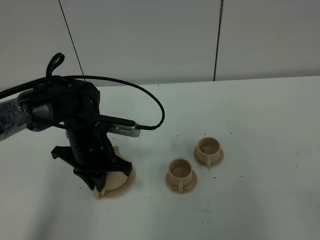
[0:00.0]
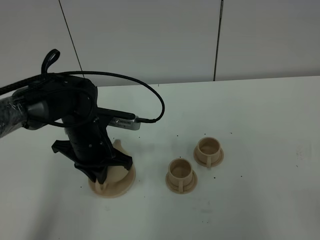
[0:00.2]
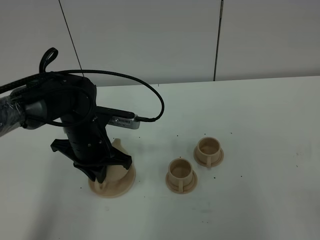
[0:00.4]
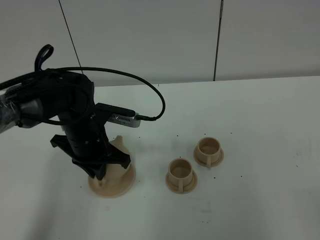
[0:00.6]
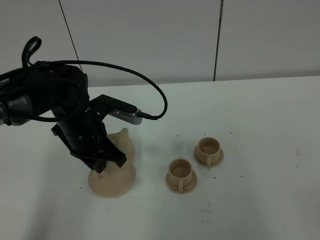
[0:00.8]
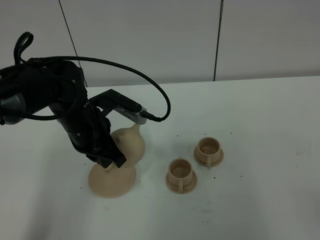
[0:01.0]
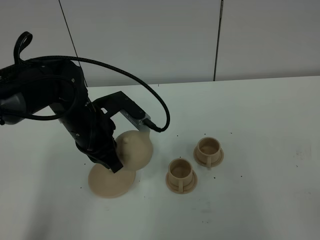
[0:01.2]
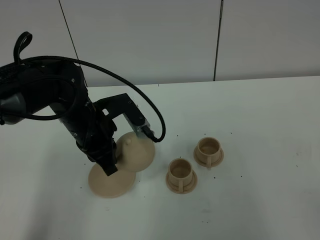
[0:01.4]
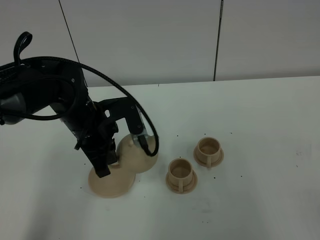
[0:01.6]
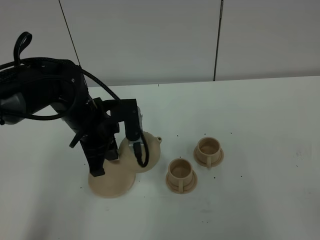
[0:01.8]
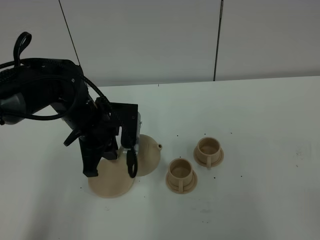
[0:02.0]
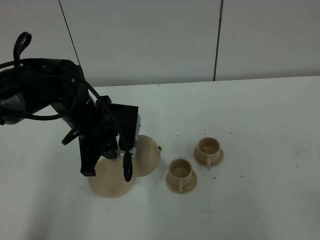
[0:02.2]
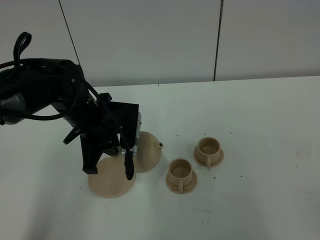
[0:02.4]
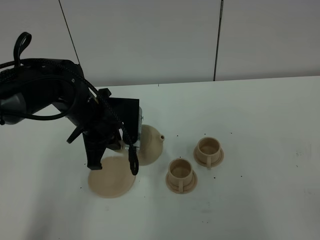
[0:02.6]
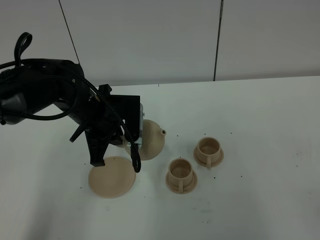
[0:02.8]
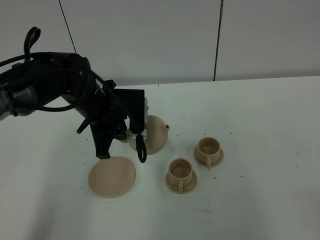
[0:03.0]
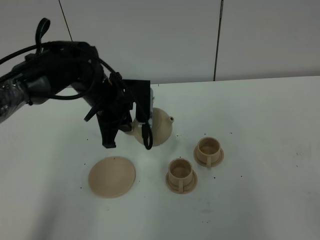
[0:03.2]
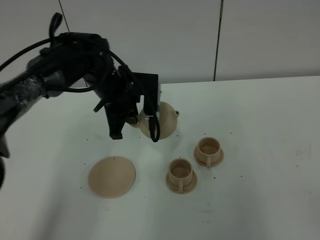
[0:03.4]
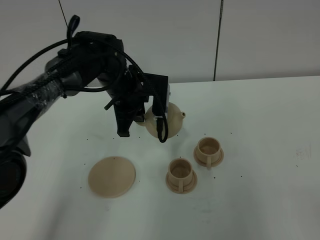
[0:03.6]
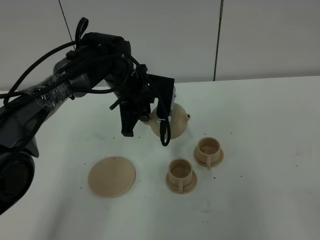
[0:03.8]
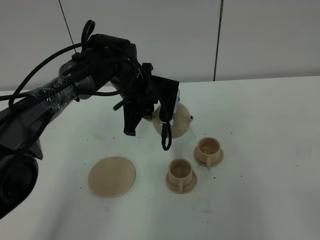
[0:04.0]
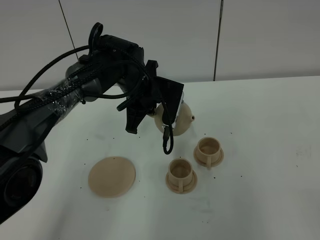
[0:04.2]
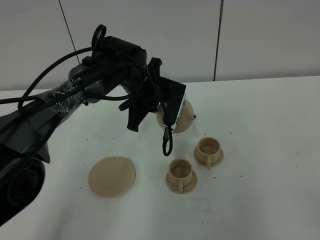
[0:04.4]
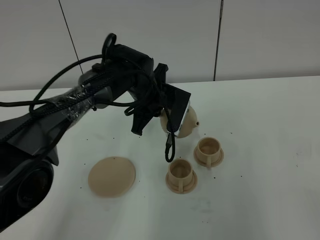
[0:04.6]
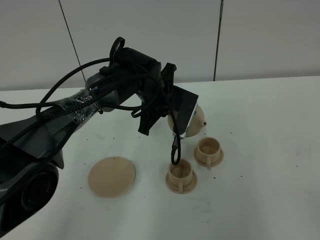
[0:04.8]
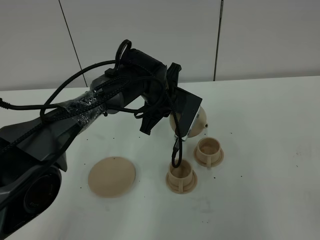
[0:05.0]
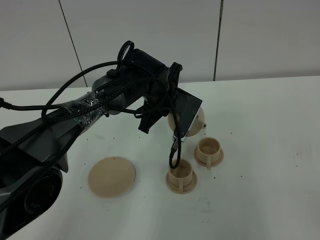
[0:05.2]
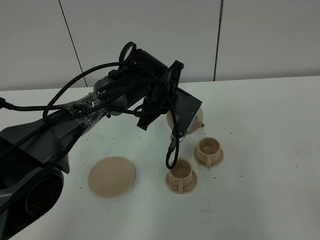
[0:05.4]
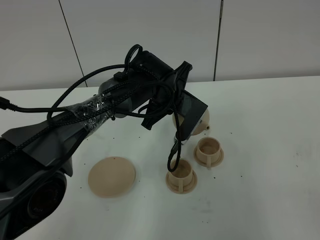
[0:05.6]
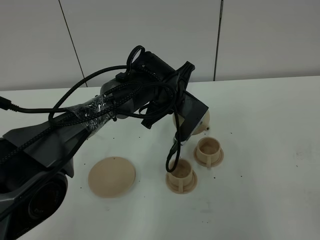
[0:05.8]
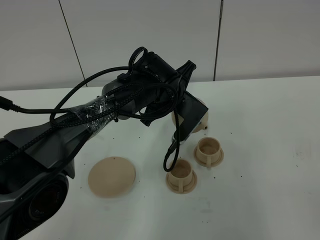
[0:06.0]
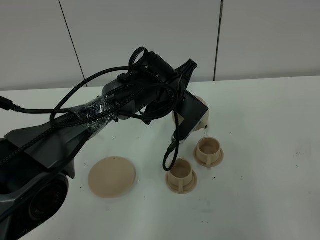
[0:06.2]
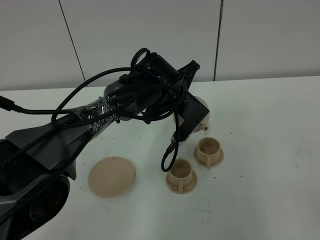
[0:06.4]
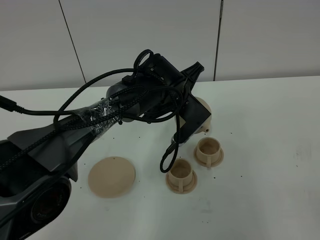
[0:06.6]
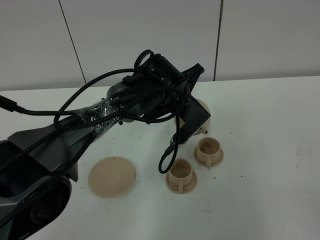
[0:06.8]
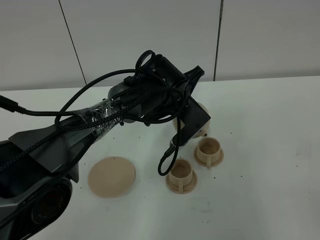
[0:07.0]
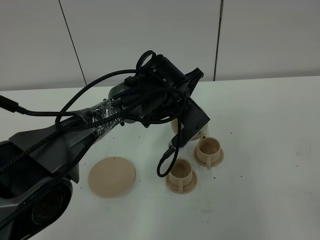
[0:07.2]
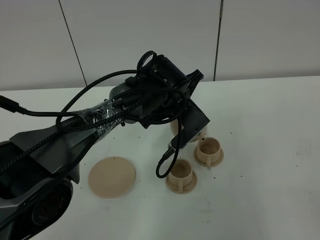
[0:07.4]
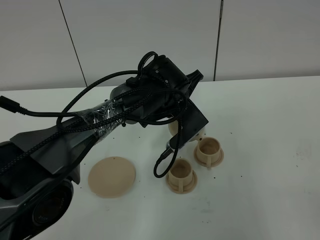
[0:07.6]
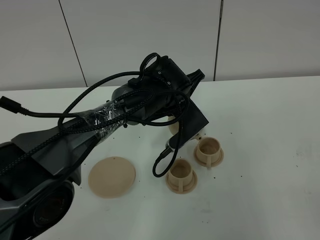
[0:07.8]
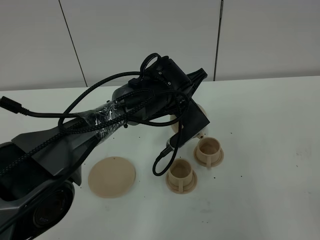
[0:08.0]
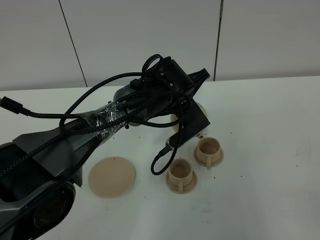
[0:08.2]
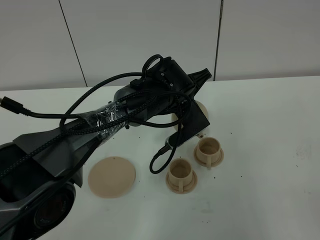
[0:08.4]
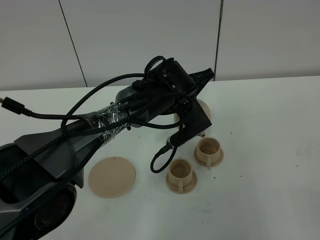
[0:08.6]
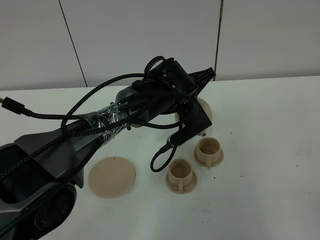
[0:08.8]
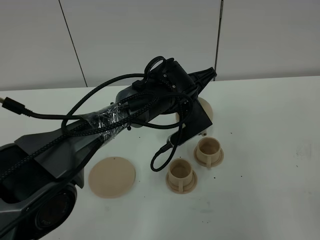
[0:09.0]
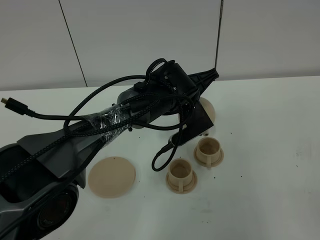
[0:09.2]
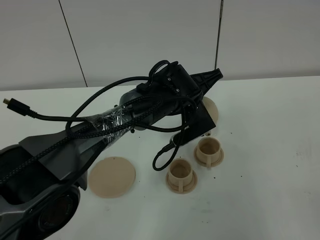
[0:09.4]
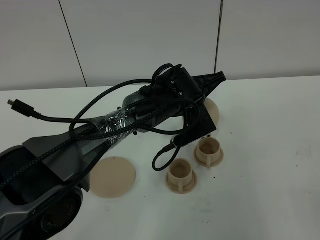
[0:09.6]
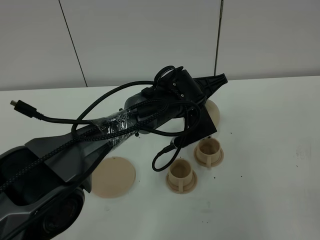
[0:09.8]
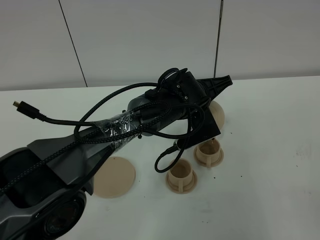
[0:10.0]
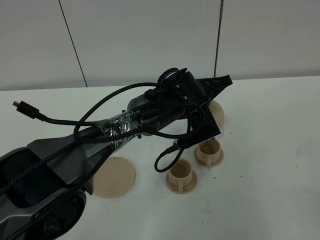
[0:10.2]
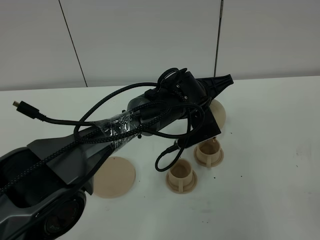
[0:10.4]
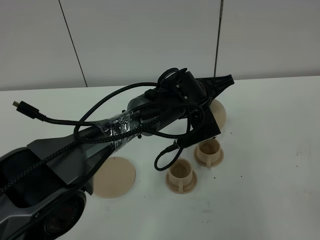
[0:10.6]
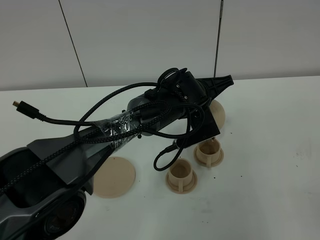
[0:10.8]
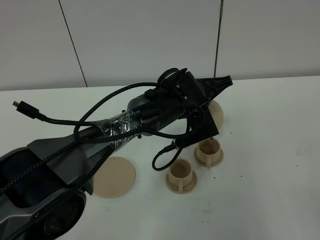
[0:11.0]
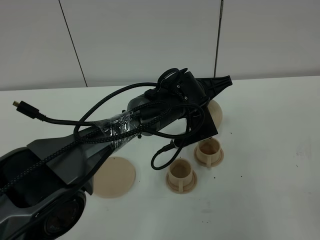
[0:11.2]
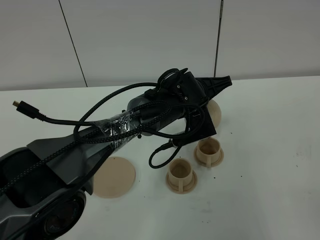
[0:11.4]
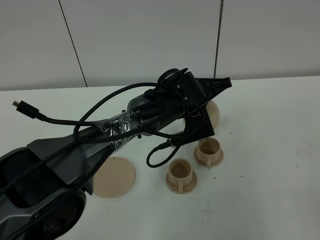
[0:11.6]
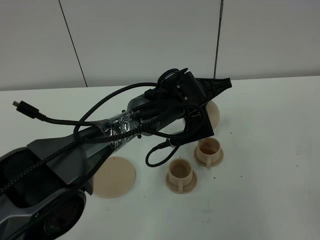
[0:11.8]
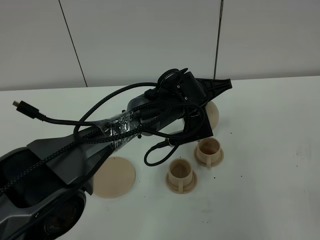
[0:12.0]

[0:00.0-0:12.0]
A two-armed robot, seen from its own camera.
Task of the whole recording: grasp the brown teapot and pour the tea into the two brown teacups one by one, put the brown teapot back in its original place.
0:00.0 to 0:01.6: The left gripper goes some 5 cm upward.
0:03.0 to 0:04.4: The left gripper shifts roughly 10 cm to the right and forward.
0:04.4 to 0:06.0: The left gripper shifts some 5 cm to the right.
0:06.0 to 0:07.6: The grippers stay close to where they were, moving slightly.
0:07.6 to 0:09.0: The grippers make only small movements.
0:09.0 to 0:12.0: The grippers stay close to where they were, moving slightly.

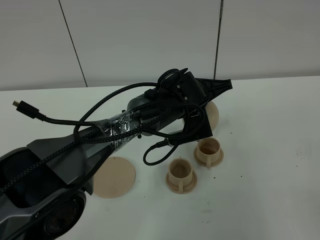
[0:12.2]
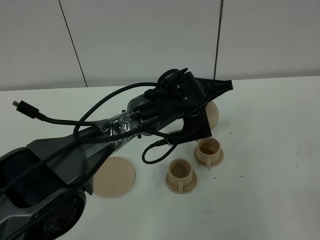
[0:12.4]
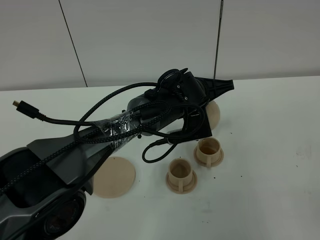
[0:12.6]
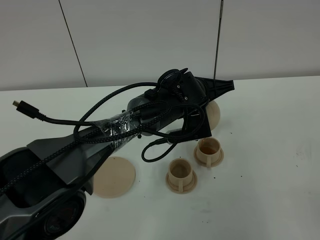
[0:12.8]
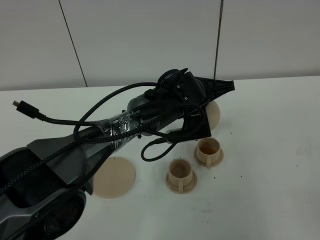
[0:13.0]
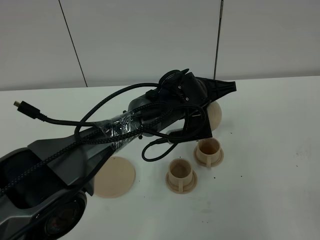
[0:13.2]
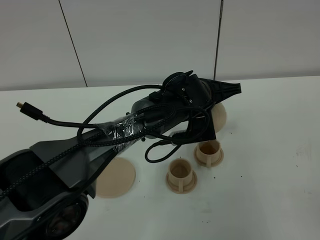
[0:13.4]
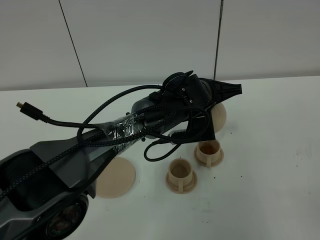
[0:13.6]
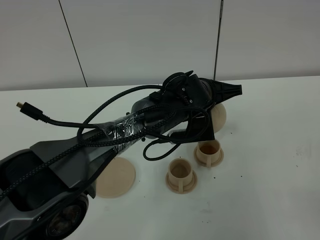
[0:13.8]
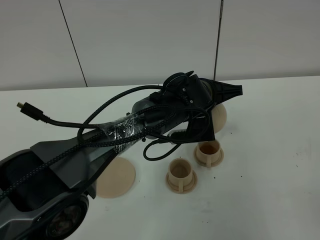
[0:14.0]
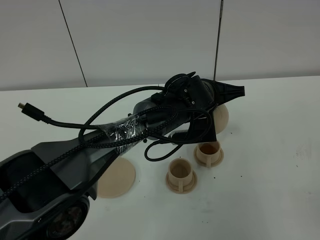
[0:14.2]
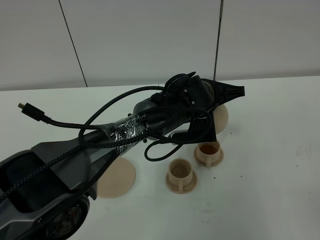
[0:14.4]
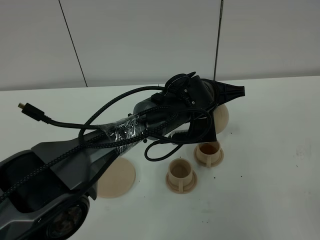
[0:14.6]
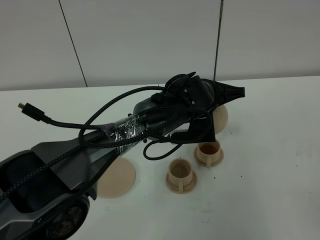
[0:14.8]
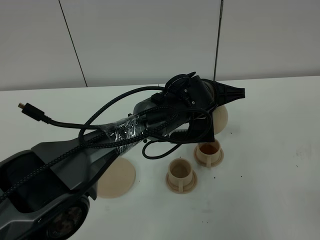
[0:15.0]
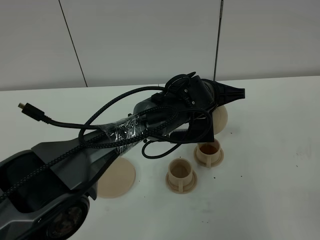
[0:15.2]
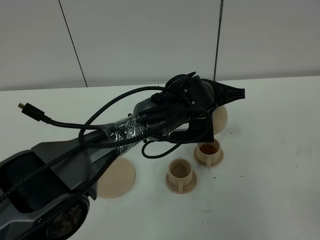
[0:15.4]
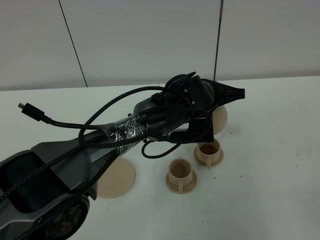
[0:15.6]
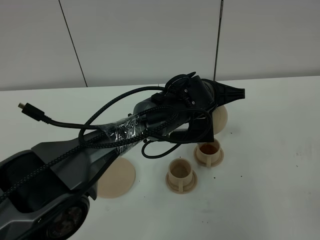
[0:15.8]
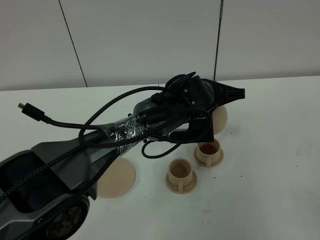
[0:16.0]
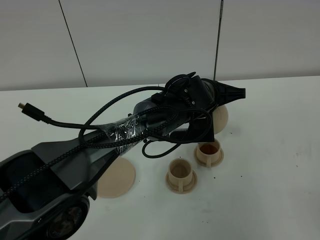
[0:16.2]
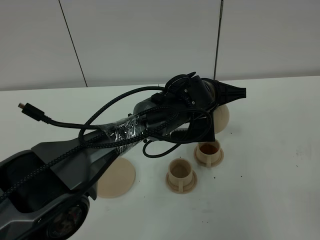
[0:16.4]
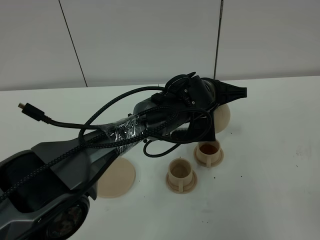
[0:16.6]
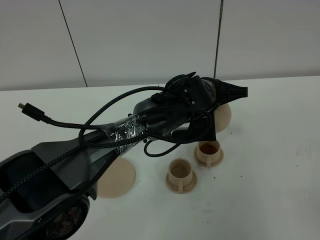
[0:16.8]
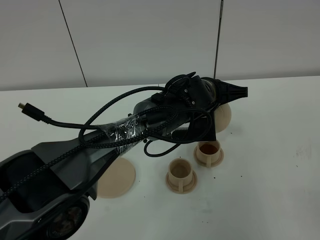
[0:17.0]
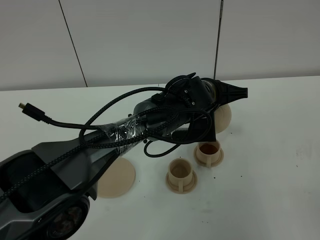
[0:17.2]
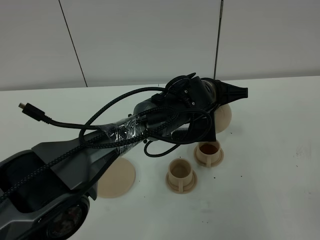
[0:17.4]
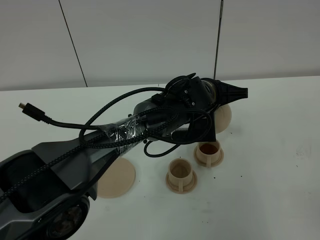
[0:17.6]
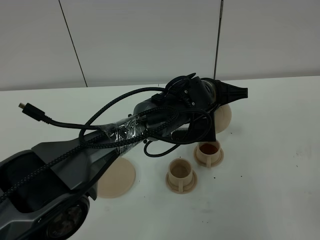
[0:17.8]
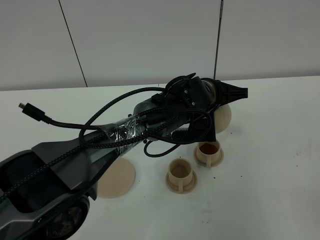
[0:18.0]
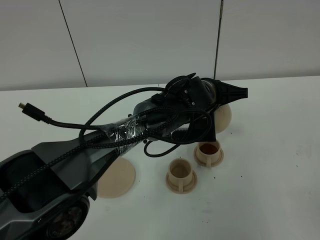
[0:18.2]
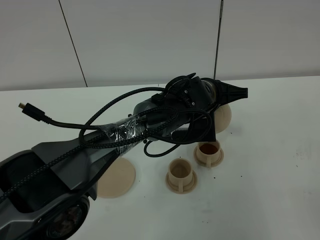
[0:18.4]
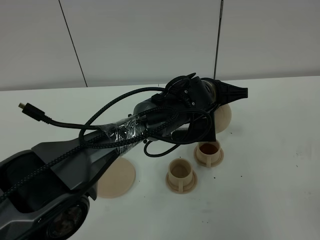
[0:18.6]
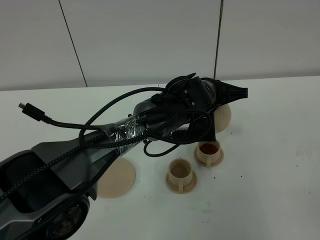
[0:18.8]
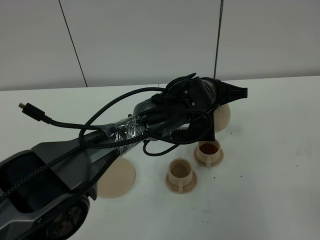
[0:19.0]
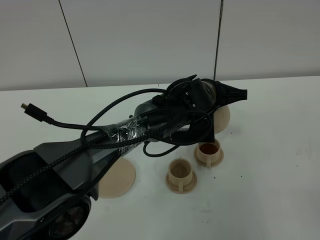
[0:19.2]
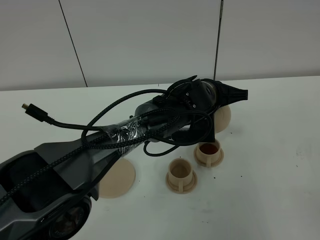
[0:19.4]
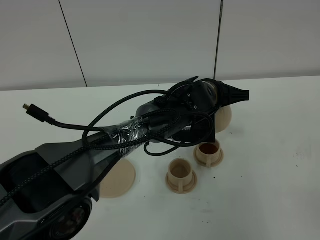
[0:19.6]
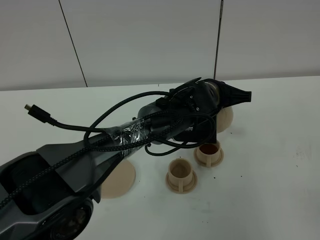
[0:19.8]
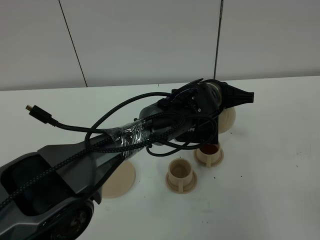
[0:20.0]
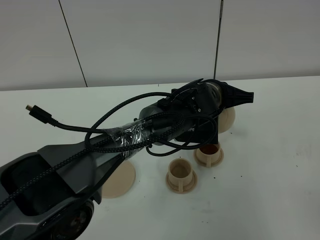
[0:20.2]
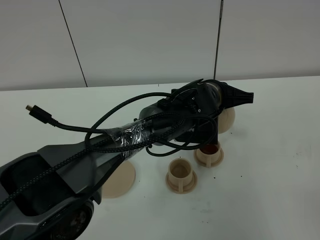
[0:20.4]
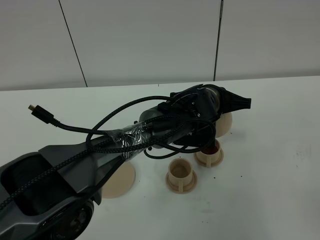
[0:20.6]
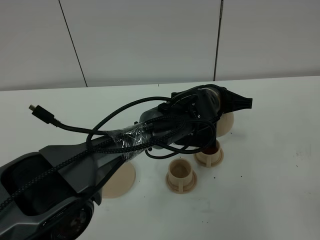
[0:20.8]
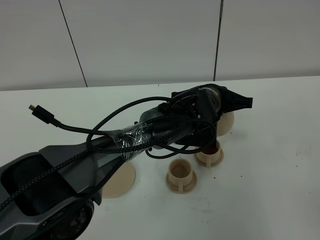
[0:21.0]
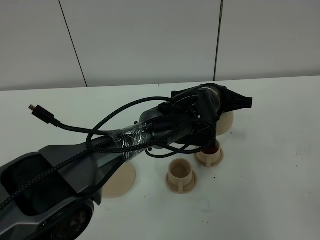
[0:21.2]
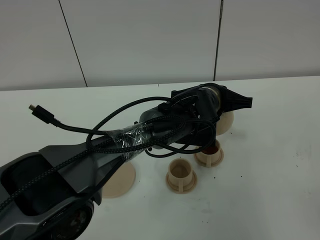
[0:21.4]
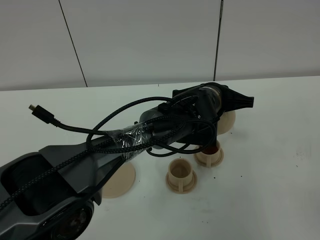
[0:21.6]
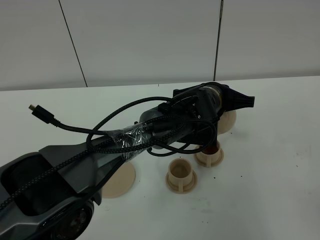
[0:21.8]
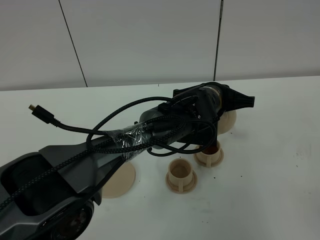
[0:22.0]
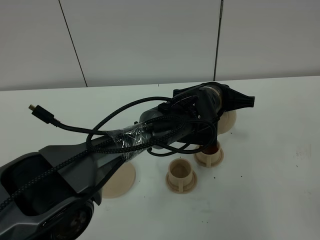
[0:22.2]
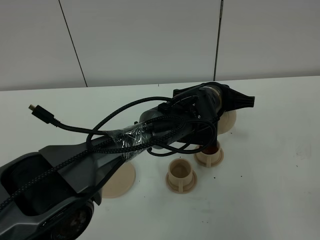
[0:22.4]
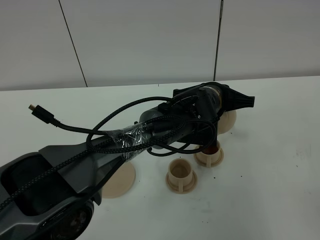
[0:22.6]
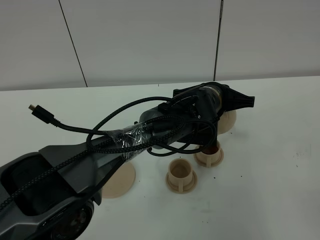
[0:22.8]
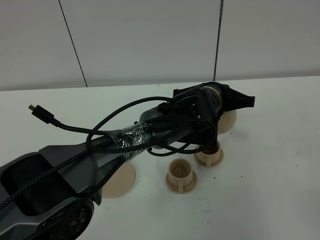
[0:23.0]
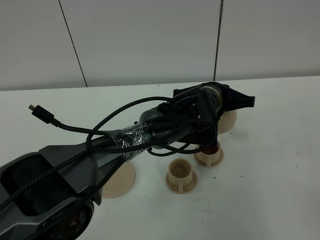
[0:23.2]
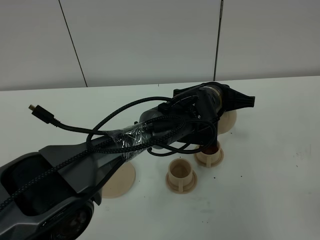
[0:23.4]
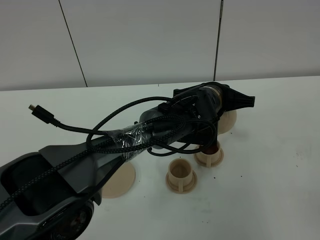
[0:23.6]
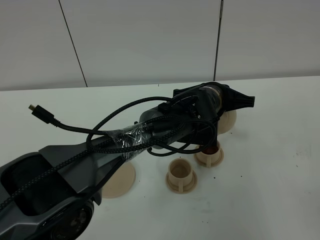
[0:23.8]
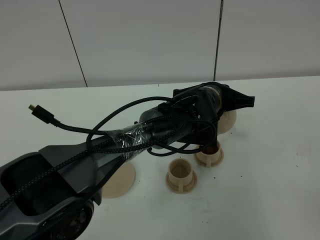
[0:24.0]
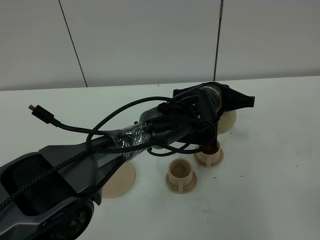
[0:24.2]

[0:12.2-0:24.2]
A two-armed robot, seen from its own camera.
Task of the whole recording: grasp the brown teapot and pour the tea into the two brown teacups one by one, put the brown teapot back in its original place.
0:12.2 to 0:13.8: The grippers make only small movements.
0:13.8 to 0:16.6: Both grippers stay about where they are.
0:16.6 to 0:18.2: Both grippers stay about where they are.
0:18.2 to 0:19.8: Both grippers stay put.
0:19.8 to 0:24.2: The two grippers keep their place.
